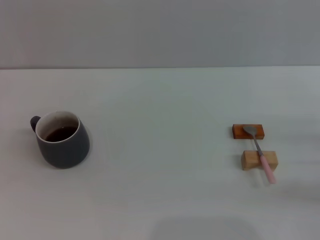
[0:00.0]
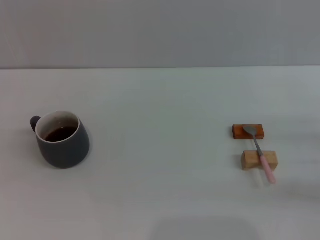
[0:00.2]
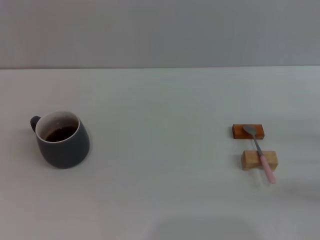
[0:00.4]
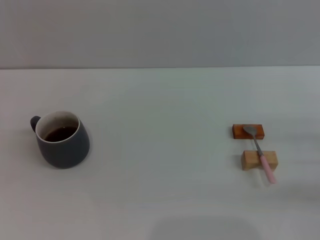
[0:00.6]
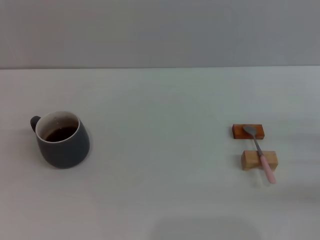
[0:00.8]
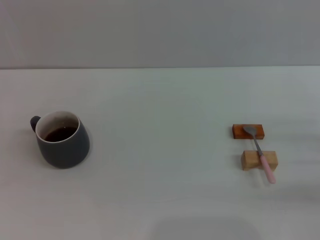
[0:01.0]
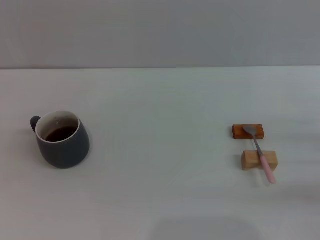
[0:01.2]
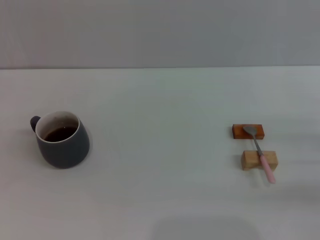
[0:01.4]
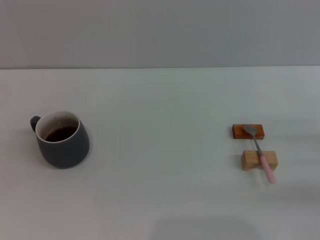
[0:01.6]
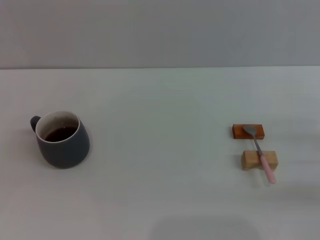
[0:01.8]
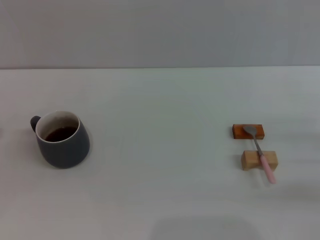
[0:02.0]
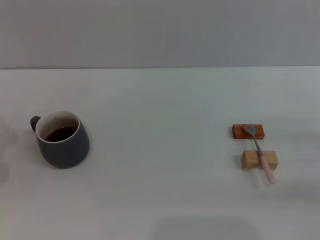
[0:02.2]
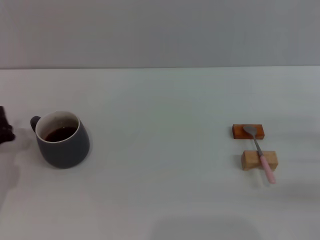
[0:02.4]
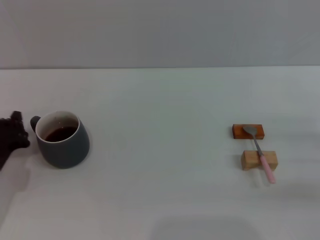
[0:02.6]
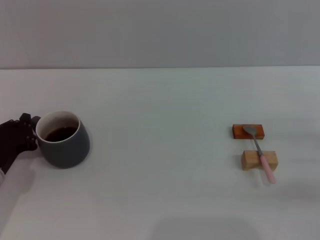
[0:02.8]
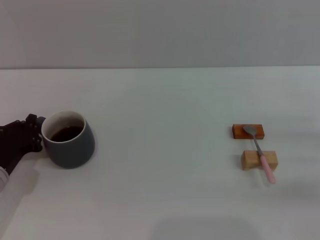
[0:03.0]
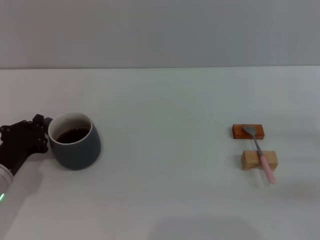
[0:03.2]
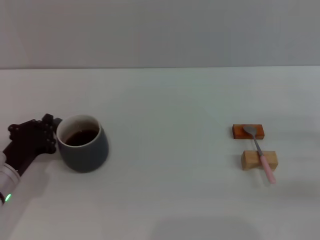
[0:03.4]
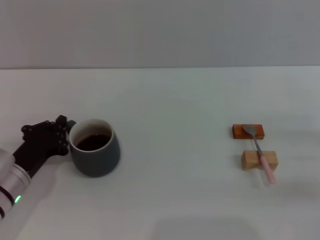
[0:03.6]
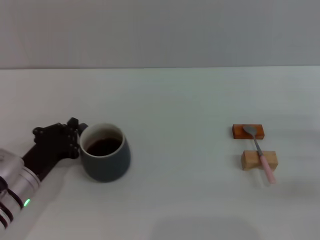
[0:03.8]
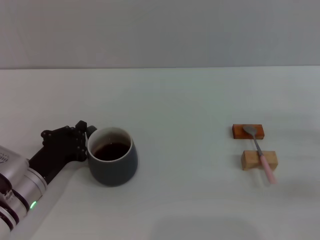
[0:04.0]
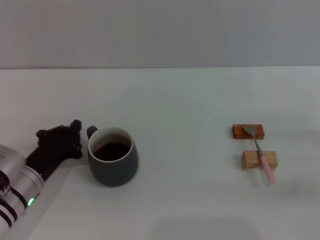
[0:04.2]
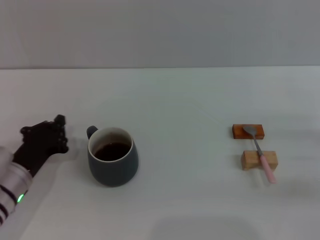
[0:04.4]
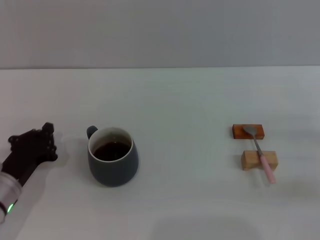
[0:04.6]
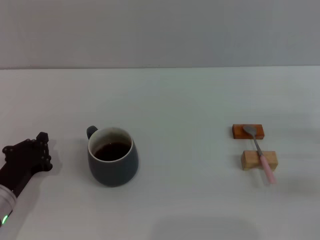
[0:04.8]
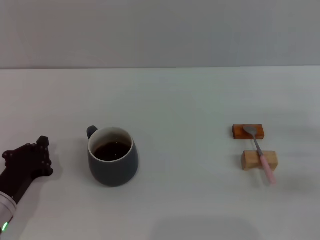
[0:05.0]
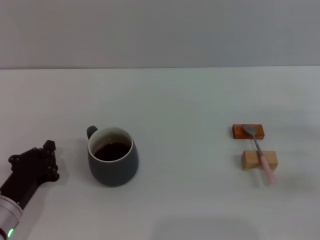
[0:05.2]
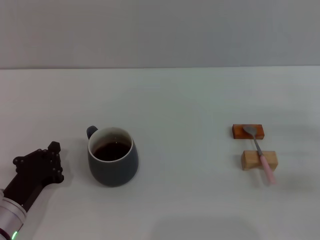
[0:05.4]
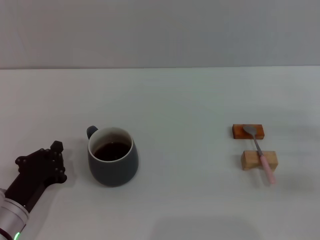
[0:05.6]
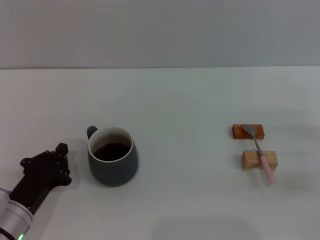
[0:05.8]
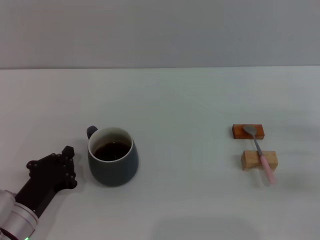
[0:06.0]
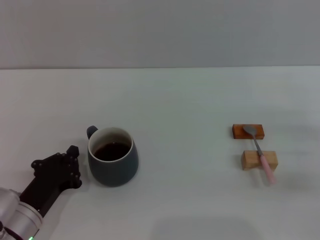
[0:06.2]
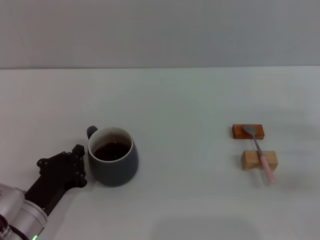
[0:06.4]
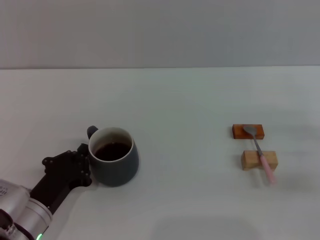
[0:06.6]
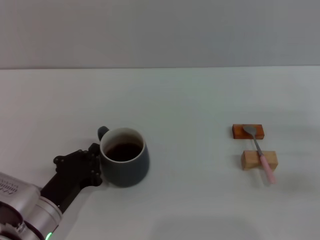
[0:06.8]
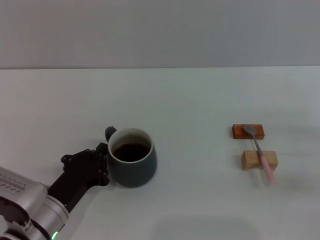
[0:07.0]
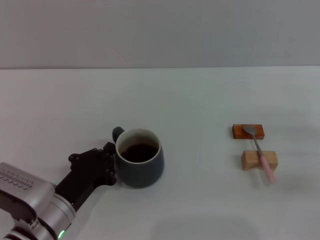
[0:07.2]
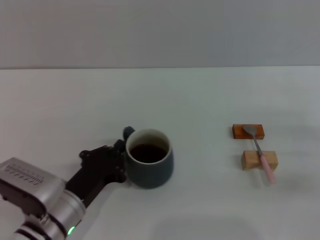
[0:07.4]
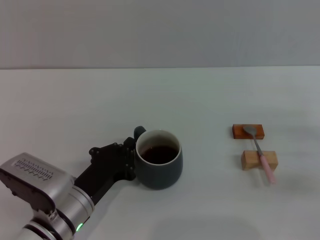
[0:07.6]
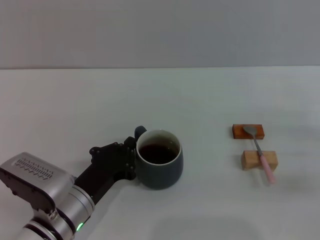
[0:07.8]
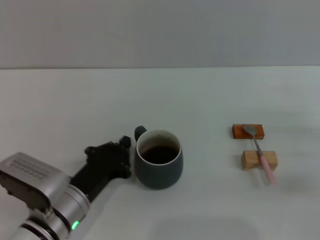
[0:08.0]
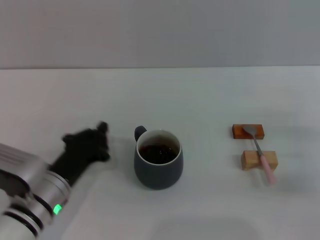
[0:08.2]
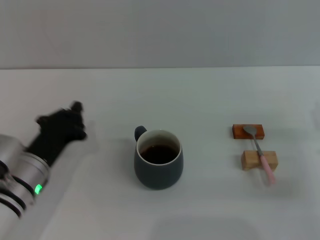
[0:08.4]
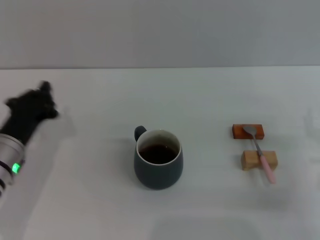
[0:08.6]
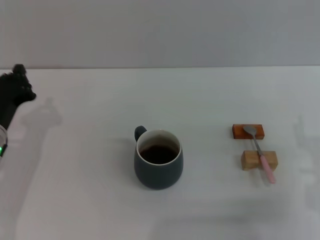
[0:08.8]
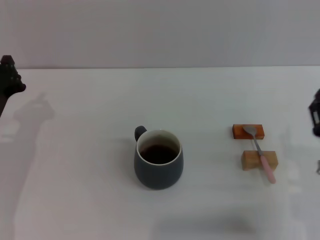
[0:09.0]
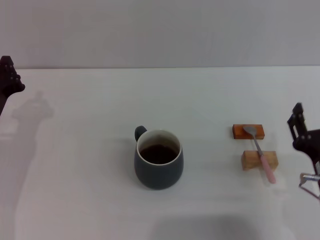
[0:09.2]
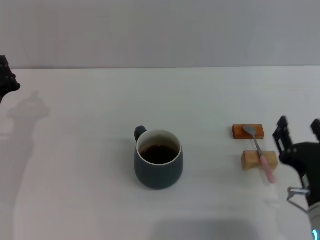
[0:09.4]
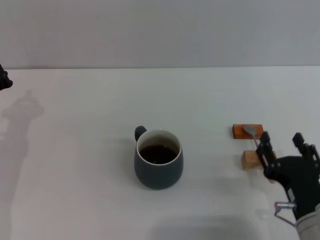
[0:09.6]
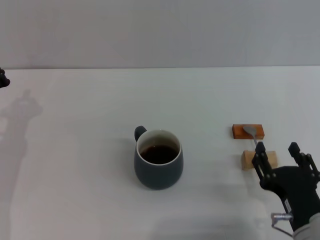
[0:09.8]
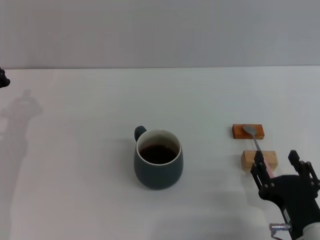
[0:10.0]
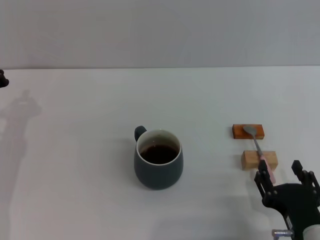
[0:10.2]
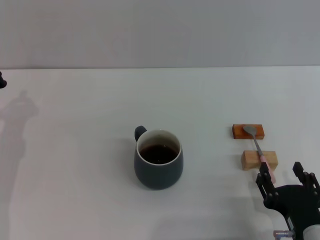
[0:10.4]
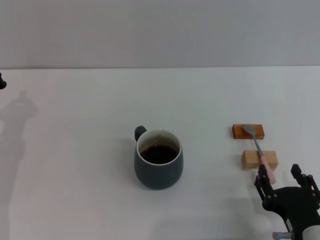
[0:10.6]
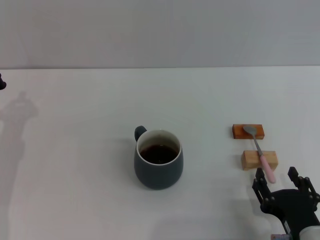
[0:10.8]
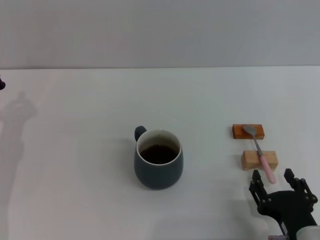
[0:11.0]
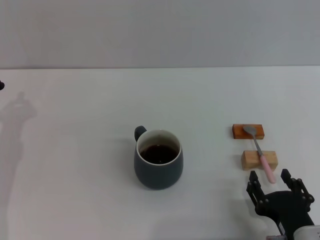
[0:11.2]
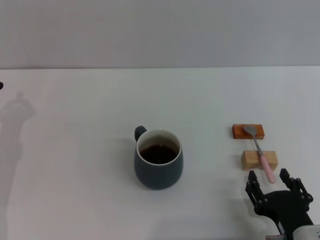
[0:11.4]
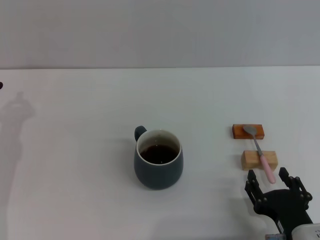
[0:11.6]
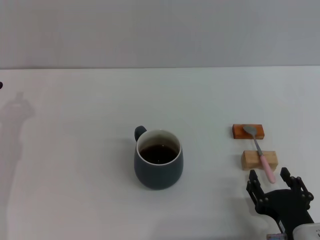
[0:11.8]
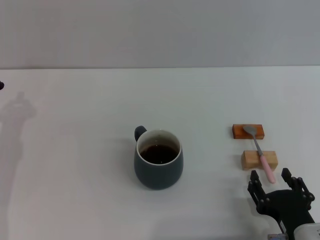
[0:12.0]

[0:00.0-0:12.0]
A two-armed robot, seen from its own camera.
Task of the whole recording: Move the grey cup to the center, lift the pink spoon, stir it three times in the cup, and put the spoon into the cup.
Step, 0:00.0 to 0:08.2: Move the cup with coffee to the center of view with the left gripper.
0:01.6 to 0:03.0: The left gripper shifts approximately 5 cm to the right, and closes its fingers.
0:03.0 to 0:04.4: The grippers stay close to where they were, moving slightly.
0:04.4 to 0:06.0: The left gripper travels backward by some 5 cm.
0:06.0 to 0:07.6: The left gripper moves to the right, approximately 10 cm.
0:07.6 to 0:09.0: The right gripper moves to the left and backward, about 15 cm. The left gripper moves to the left and forward, approximately 15 cm.
0:09.0 to 0:10.4: The right gripper goes about 5 cm backward.
0:10.4 to 0:12.0: The grippers move only a little.

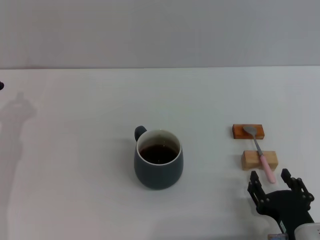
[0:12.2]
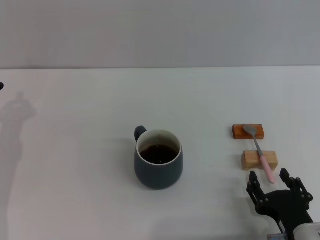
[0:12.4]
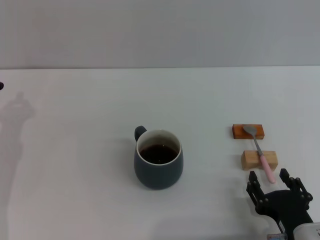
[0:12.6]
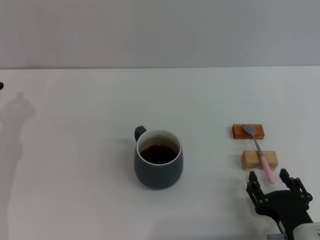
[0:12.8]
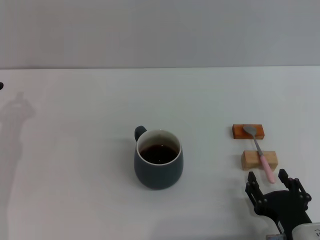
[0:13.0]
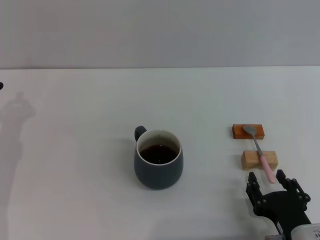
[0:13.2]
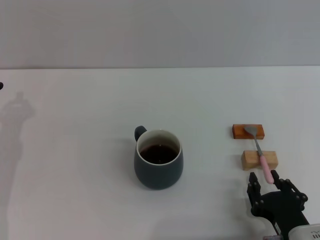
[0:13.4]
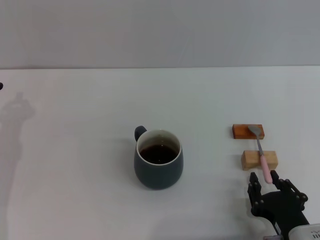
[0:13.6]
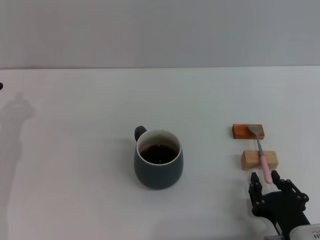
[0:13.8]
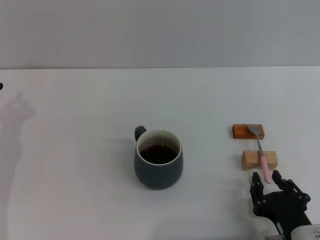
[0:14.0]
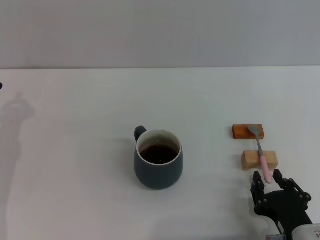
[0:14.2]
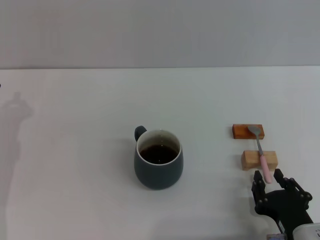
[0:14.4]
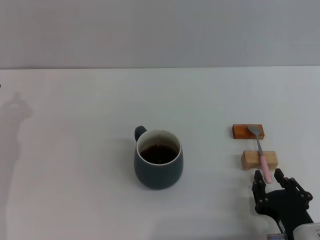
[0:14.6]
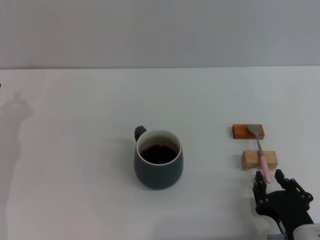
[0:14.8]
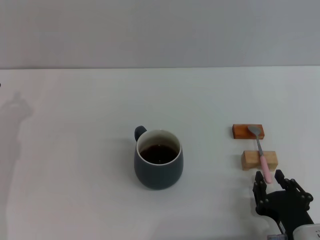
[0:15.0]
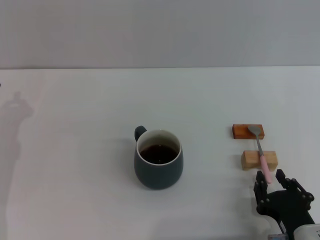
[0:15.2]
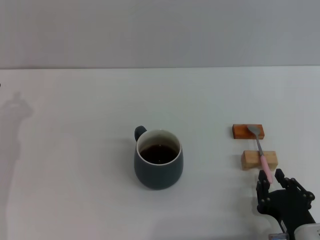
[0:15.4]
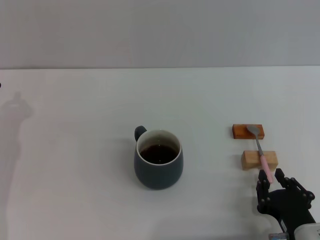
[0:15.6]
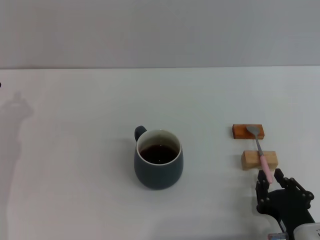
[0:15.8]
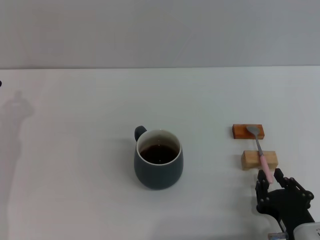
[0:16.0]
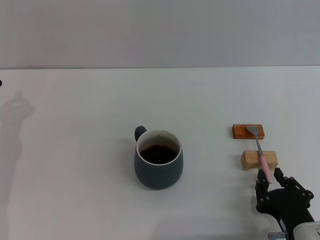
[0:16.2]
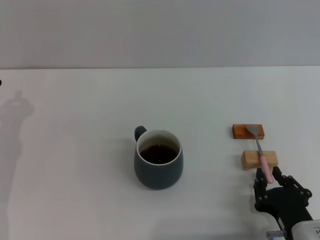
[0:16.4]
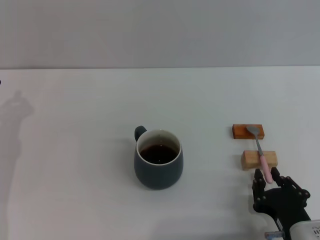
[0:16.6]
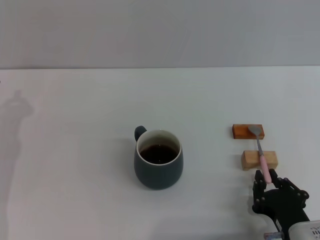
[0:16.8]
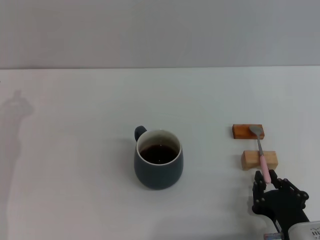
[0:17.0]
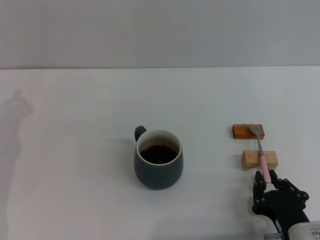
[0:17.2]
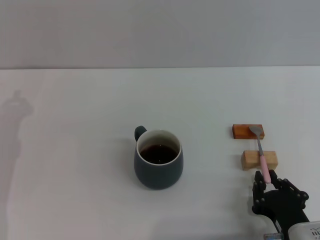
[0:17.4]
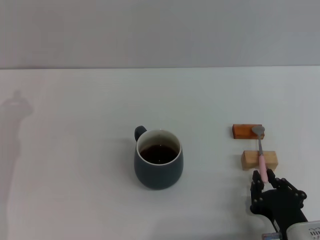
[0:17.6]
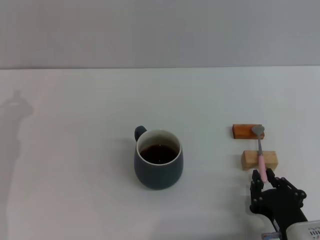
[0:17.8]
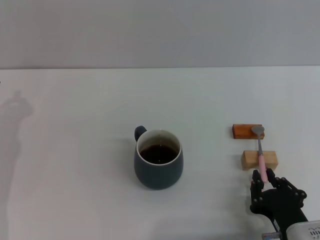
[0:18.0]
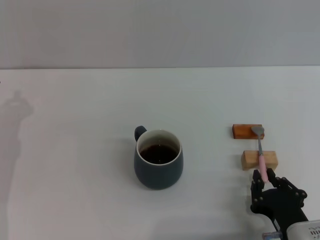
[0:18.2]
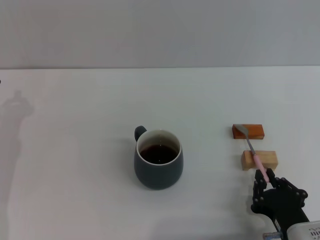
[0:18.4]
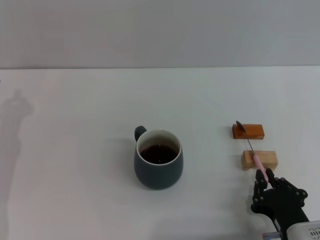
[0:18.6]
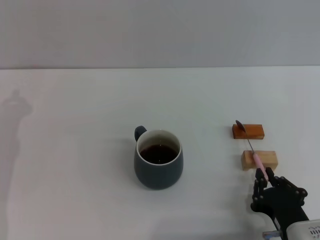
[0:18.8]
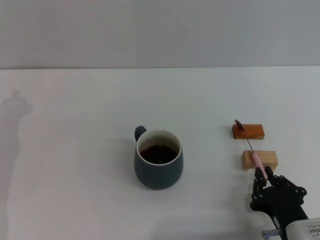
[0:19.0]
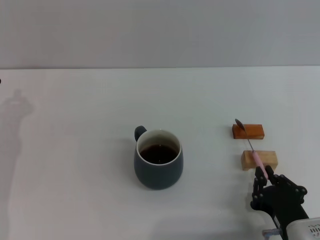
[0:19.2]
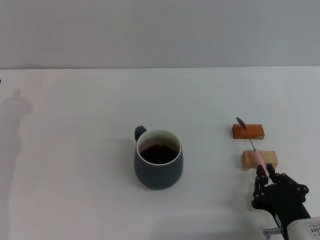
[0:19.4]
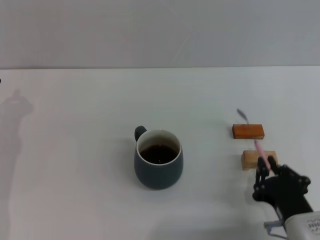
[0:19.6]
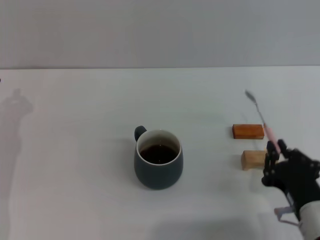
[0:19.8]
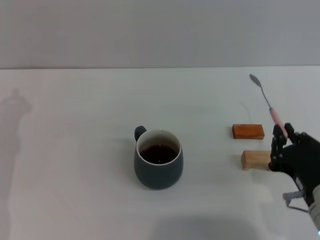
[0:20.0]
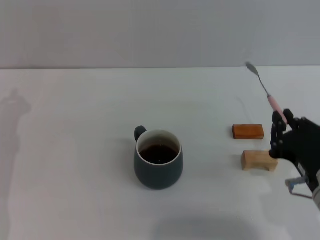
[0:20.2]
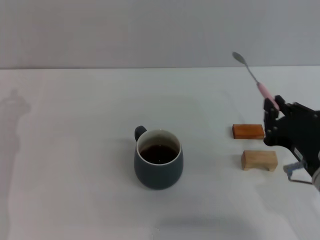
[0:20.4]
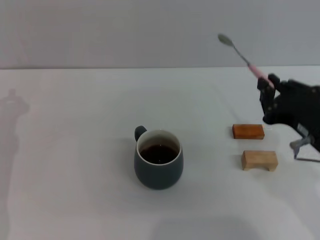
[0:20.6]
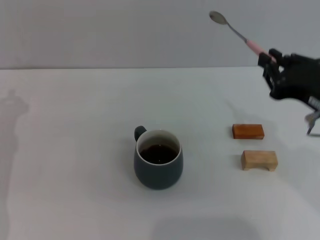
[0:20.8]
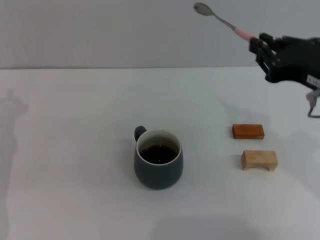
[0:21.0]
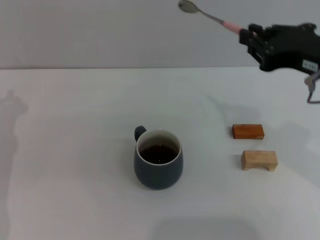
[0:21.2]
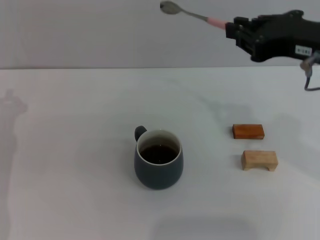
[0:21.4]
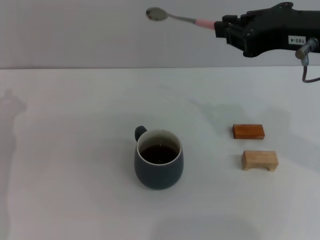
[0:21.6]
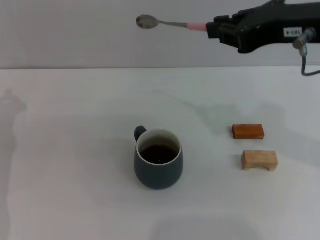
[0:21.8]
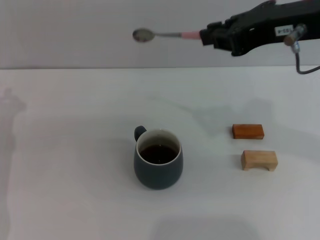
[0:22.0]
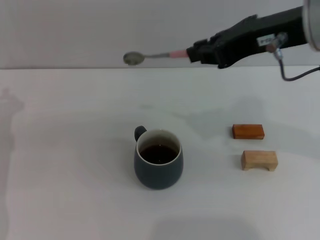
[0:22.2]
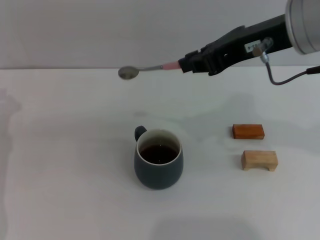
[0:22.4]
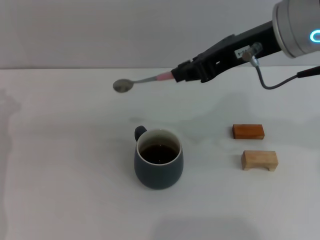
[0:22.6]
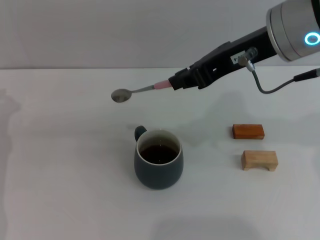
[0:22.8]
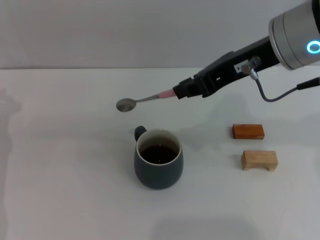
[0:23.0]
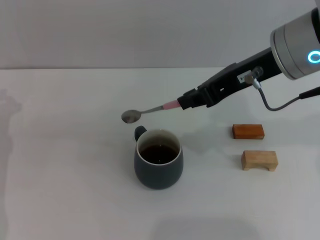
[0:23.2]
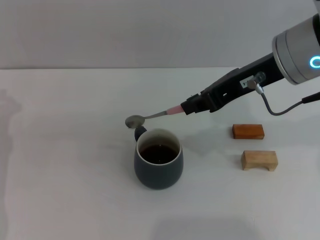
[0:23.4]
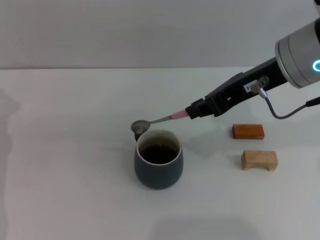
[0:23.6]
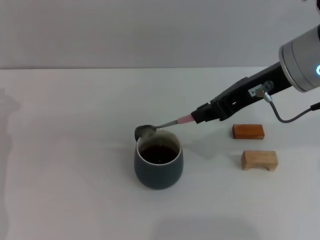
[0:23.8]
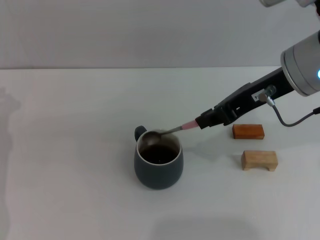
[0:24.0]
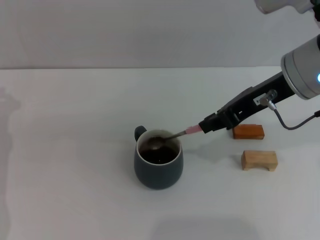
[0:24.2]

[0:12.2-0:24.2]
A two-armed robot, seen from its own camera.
Task of the whole recording: Move the grey cup to the center, lift the pink spoon, stir it three times in the cup, and put the spoon into the cup.
Step, 0:12.2 to 0:20.2: Pick up the spoon with the right gripper.
0:12.2 to 0:13.8: The right gripper closes up.
0:13.8 to 0:18.2: Both grippers stay put.
0:18.2 to 0:19.8: There are only small adjustments of the grippers.
0:19.8 to 0:21.2: The right gripper travels upward and forward by roughly 20 cm.
0:21.2 to 0:22.6: The right gripper is displaced to the left, forward and upward by some 10 cm.
0:22.6 to 0:24.2: The right gripper changes place by approximately 5 cm.
